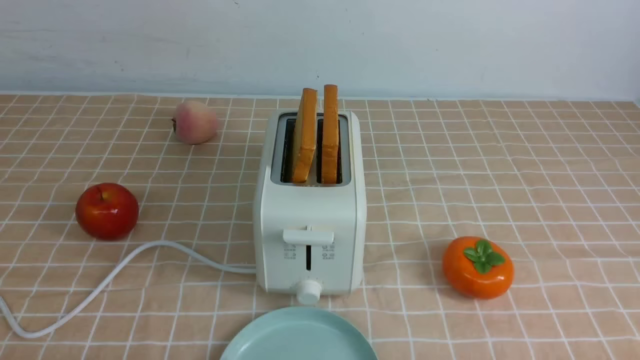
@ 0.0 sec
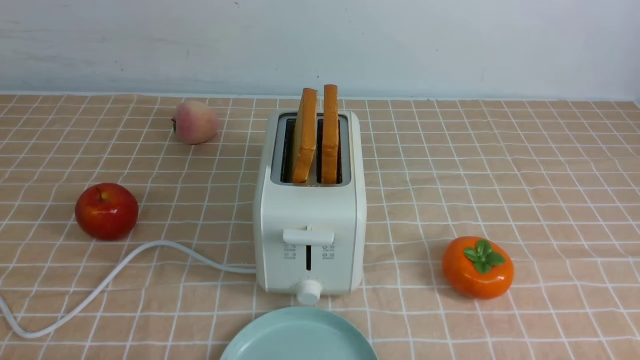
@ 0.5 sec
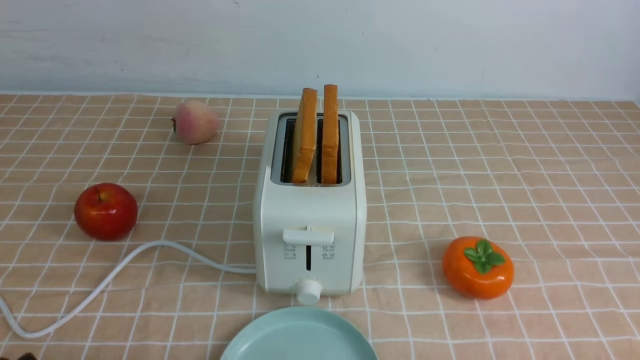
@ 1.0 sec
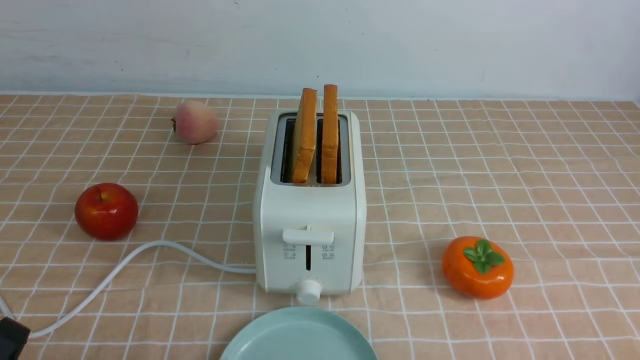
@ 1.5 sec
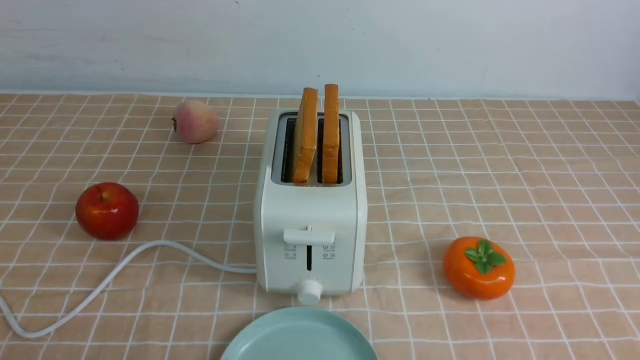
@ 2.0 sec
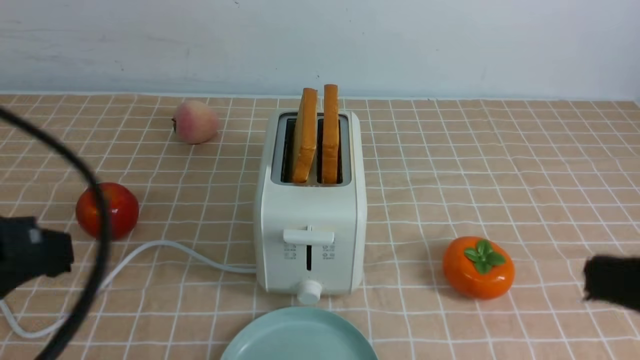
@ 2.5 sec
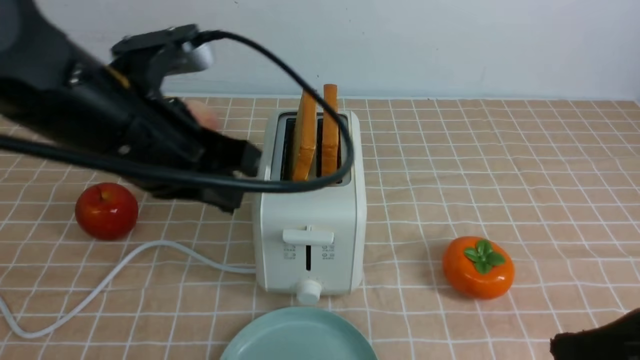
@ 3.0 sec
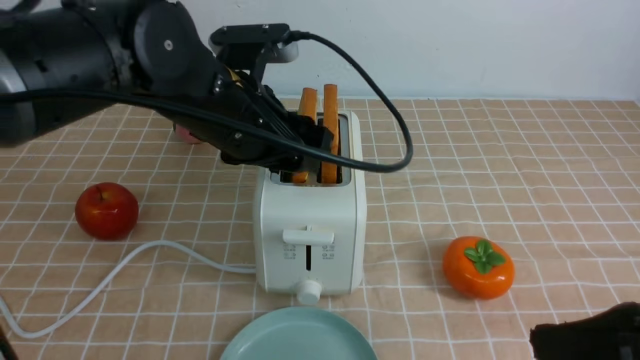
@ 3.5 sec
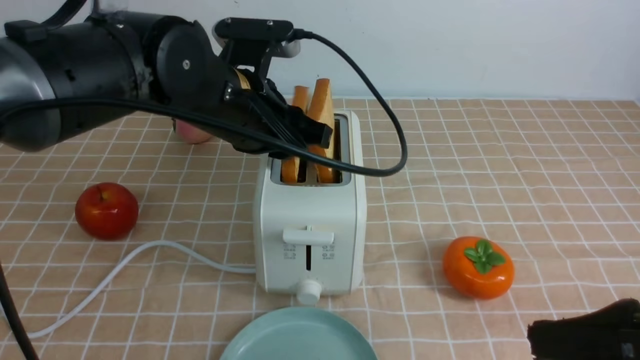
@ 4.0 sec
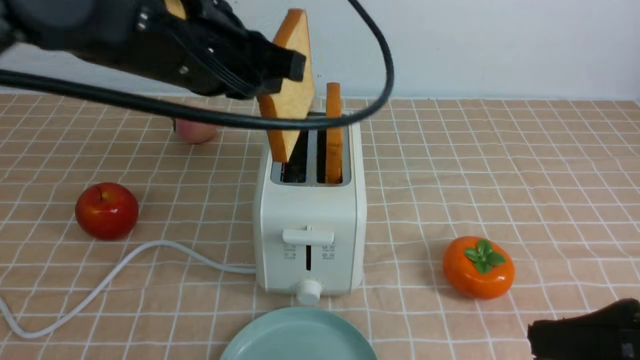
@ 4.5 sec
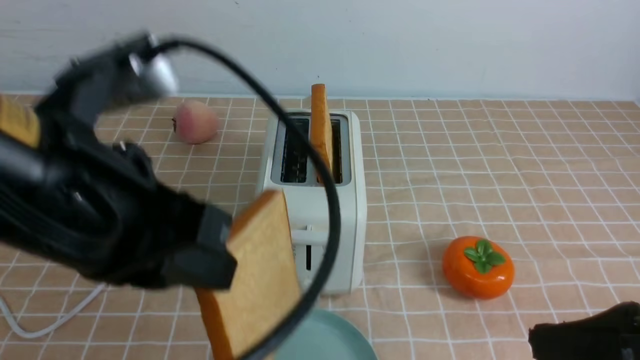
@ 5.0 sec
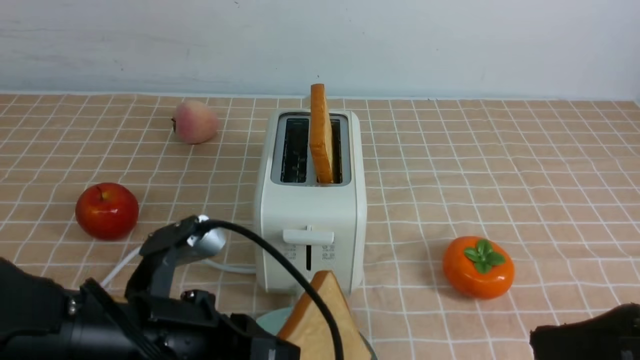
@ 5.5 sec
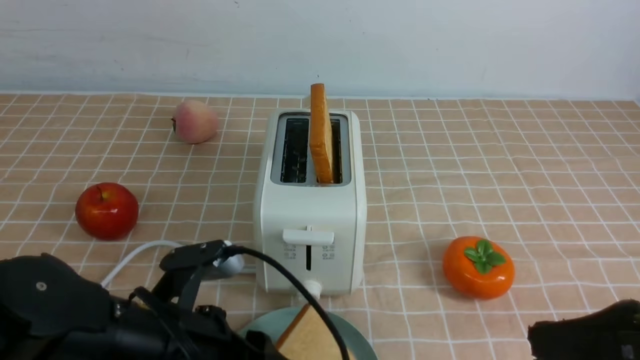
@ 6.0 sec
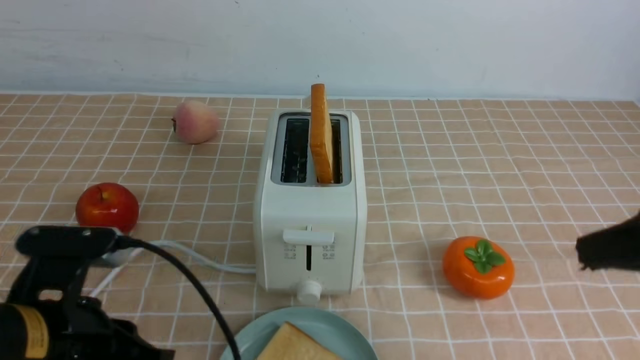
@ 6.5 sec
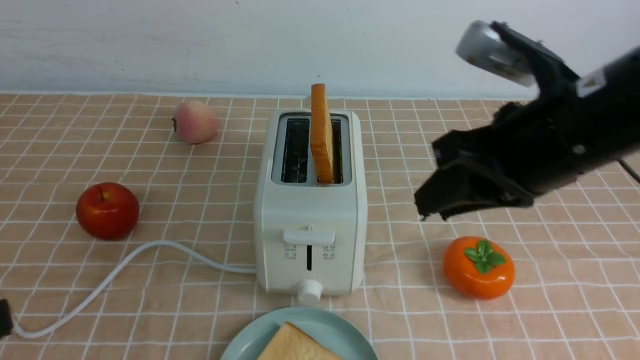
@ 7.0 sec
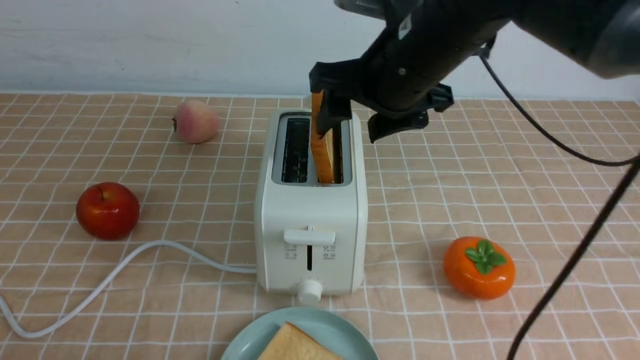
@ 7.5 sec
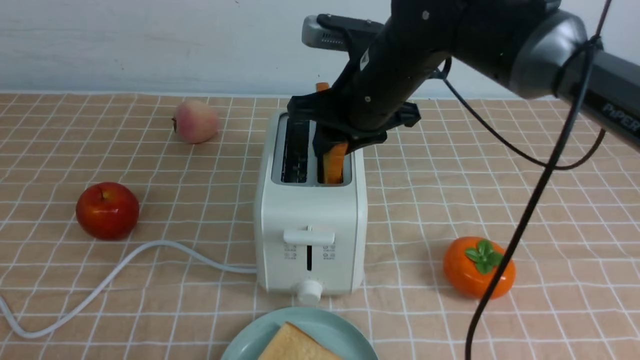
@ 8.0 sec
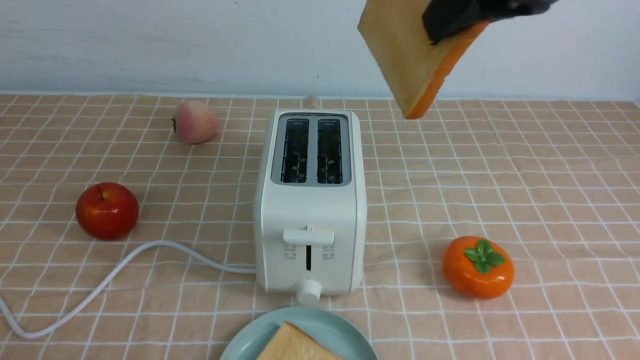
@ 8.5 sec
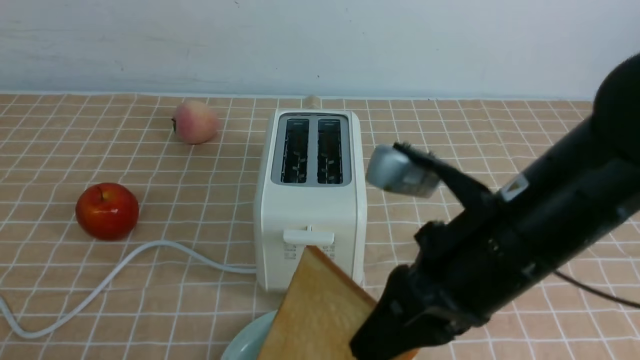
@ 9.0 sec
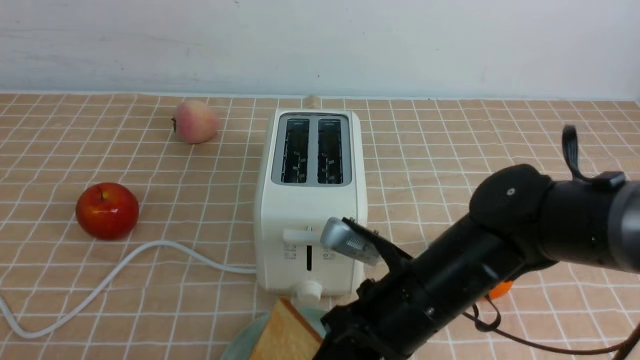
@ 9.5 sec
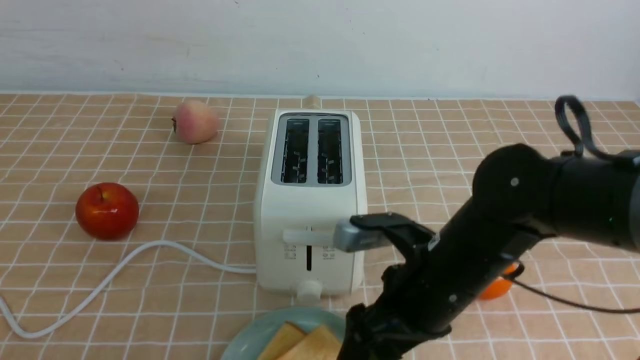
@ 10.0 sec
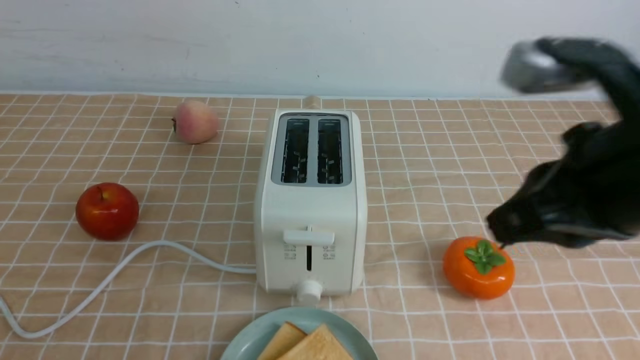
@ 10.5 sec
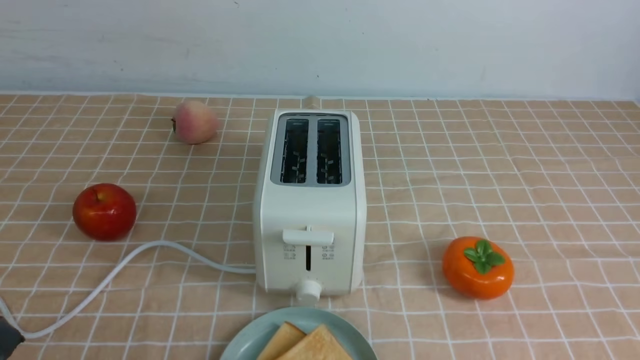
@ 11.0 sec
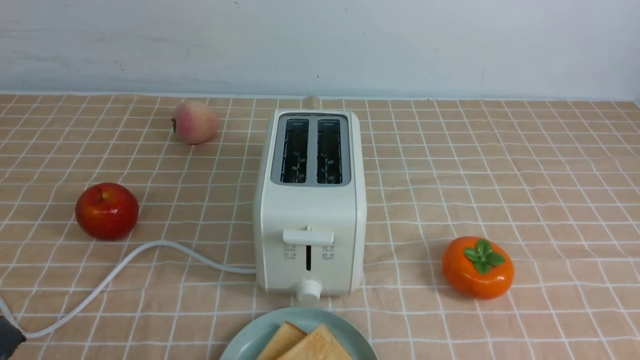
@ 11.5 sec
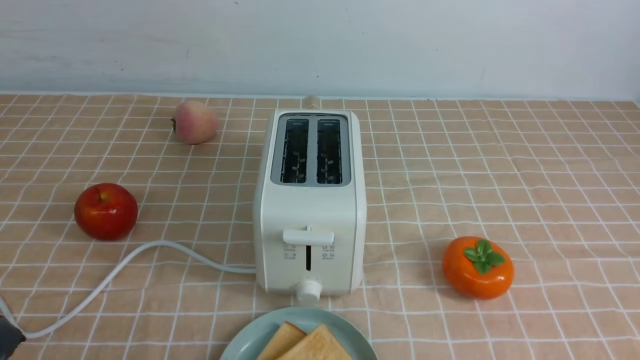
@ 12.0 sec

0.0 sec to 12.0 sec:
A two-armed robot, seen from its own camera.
Task of the whole recording: take toasted bread from bread machine on light coffee tablecloth place on plate.
Step, 0.0 sec to 4.0 sec: use the left arm to take out a slice of bread.
Step, 5.0 sec to 6.0 sec: use the left arm to put a slice of bread into the empty plate.
Step, 7.0 sec to 8.0 sec: use the right arm to take out a slice of bread.
Step, 8.5 sec to 10.0 sec: use the right arm to put a slice of bread into the plate.
2.0 sec to 4.0 sec: The right gripper is displaced forward by approximately 10 cm. The left gripper heads forward and to the right, covering about 35 cm, and opens up.
4.0 sec to 6.0 sec: The left gripper moves backward and downward, some 20 cm, and closes, then opens again.
6.0 sec to 8.0 sec: The right gripper shifts about 30 cm forward and to the left, and opens up. The left gripper is displaced backward, to the left and upward by some 25 cm, and closes its fingers.
8.0 sec to 10.0 sec: The right gripper shifts about 15 cm downward and backward, and opens.
10.0 sec to 12.0 sec: The left gripper shifts by approximately 5 cm; the right gripper shifts some 30 cm backward and to the right, and closes its fingers.

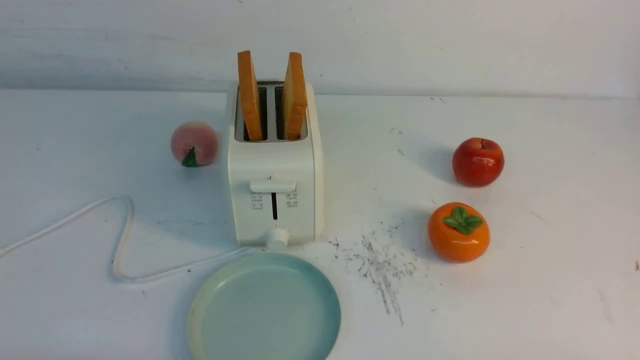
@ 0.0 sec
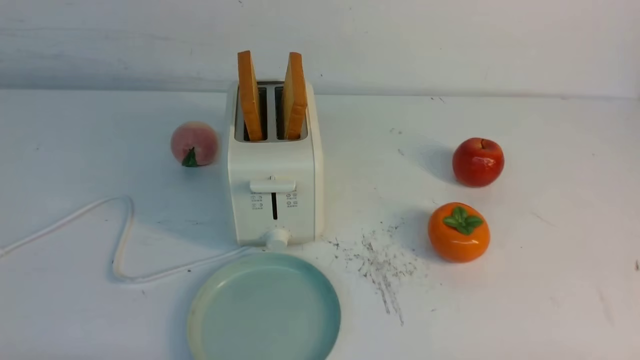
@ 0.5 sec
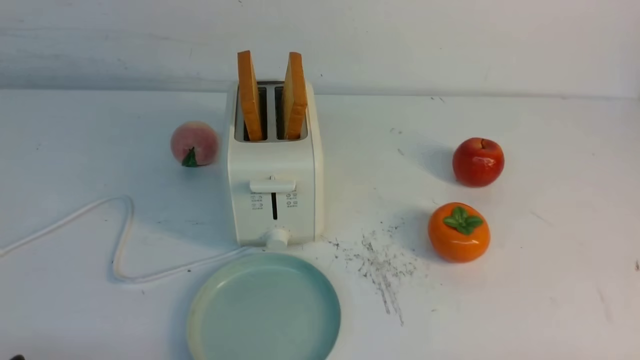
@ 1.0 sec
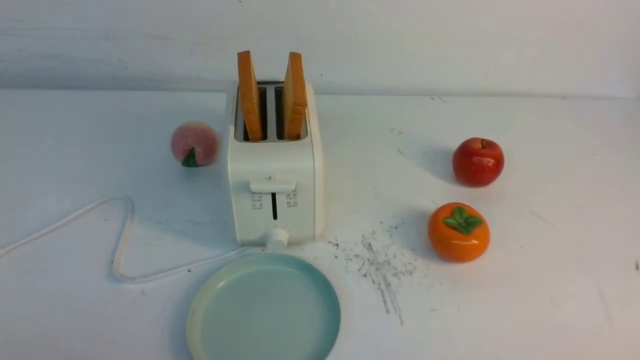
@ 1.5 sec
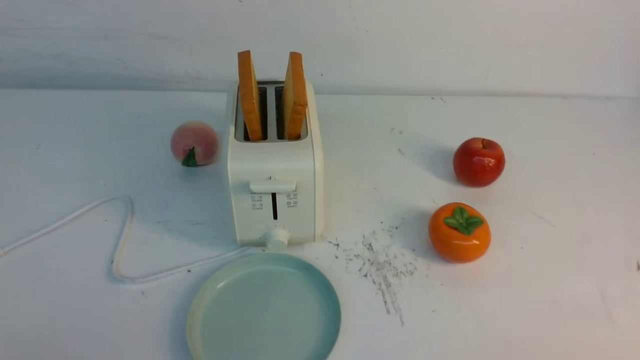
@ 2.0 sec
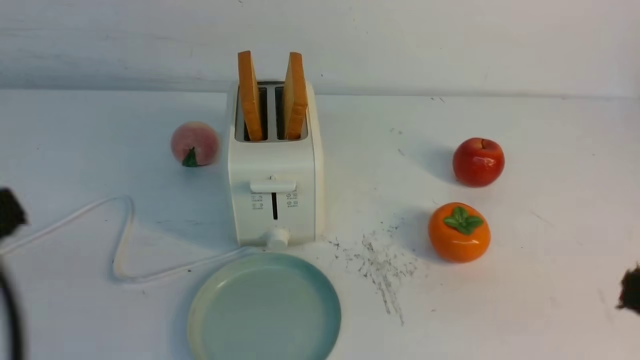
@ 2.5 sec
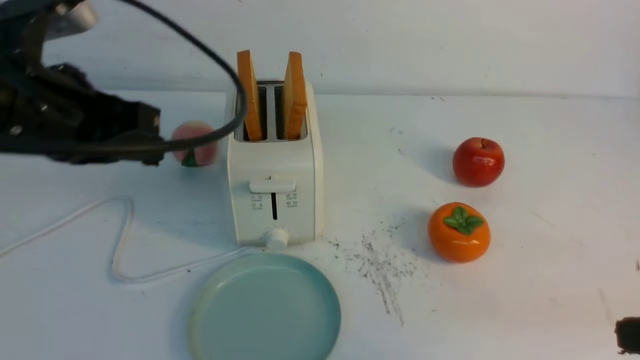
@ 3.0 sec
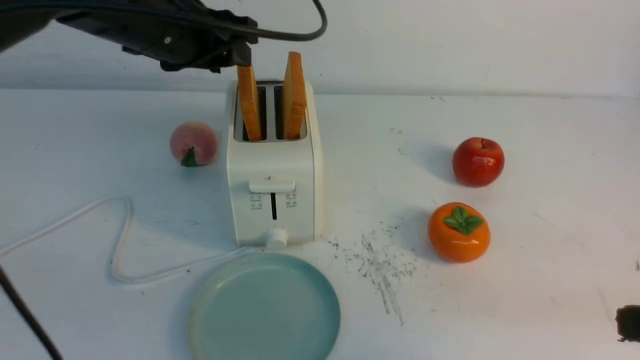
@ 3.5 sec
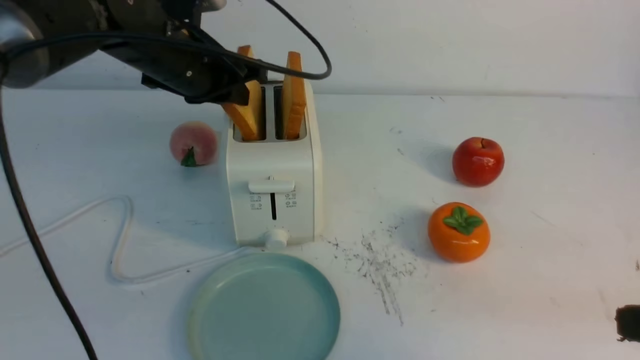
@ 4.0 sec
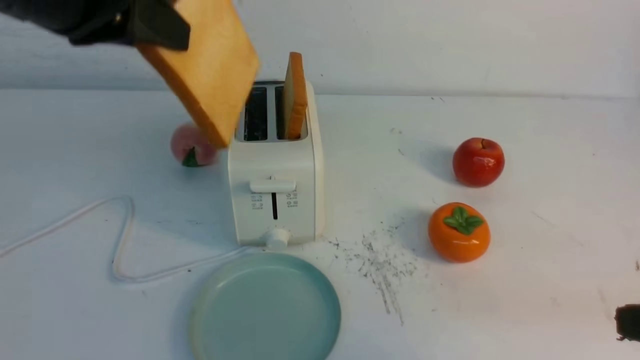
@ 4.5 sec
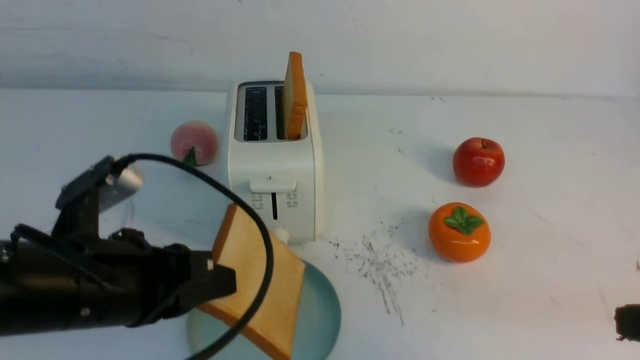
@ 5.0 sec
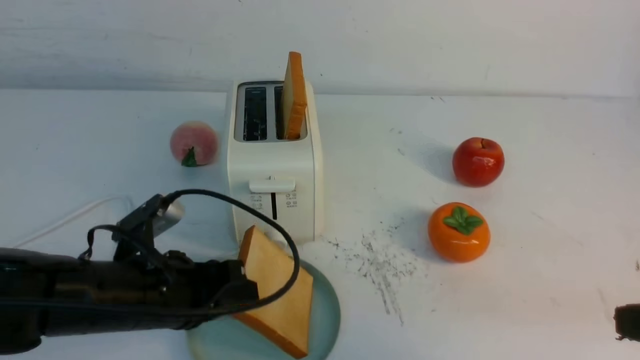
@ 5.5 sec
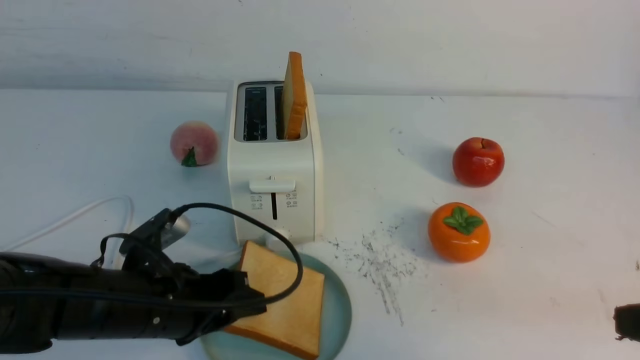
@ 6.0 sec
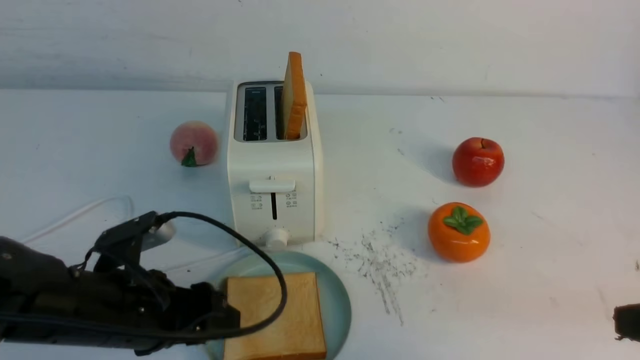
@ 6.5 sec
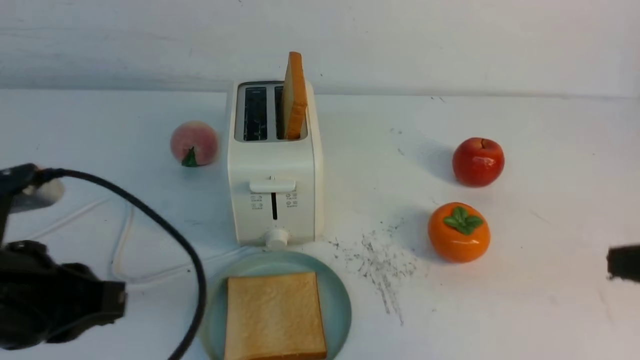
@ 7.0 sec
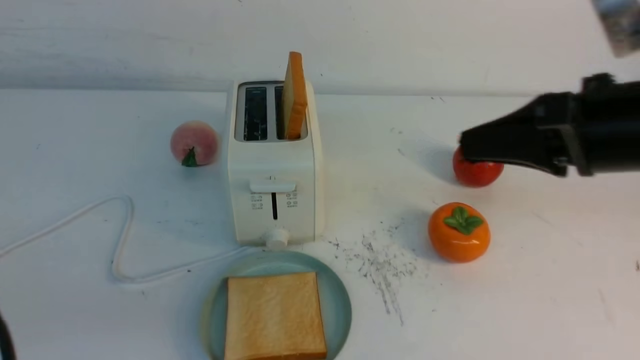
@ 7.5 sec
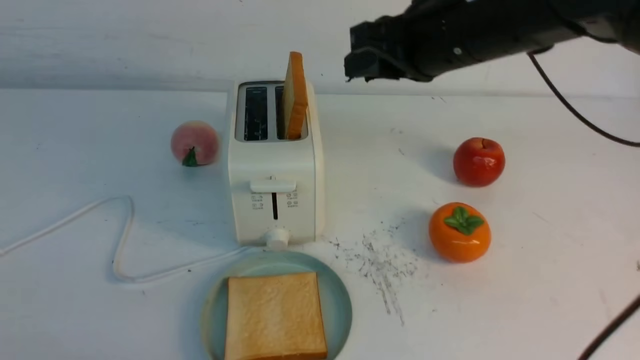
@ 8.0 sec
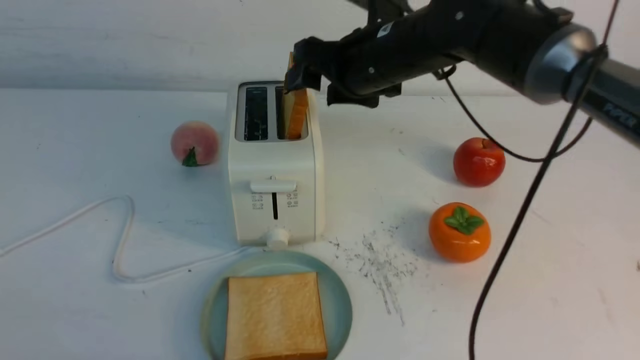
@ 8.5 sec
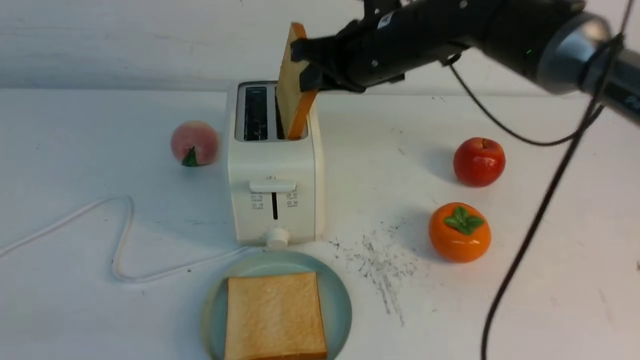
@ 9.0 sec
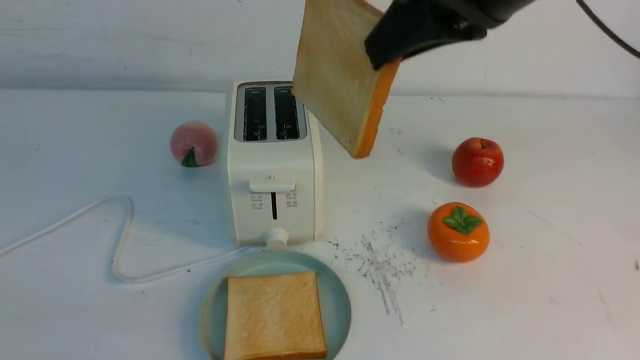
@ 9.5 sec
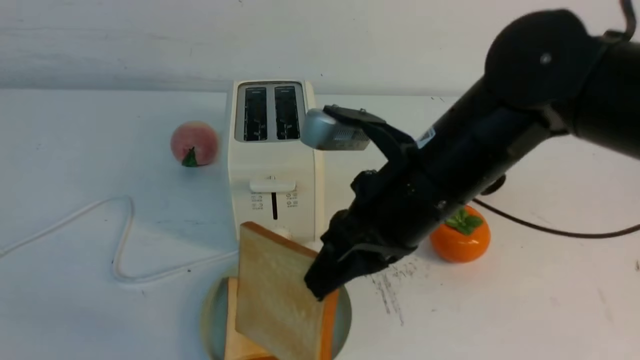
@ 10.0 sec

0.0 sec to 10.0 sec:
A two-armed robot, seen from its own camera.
Task of the whole recording: take toasted bread from bread machine on white table place on plate.
Step, 0.0 sec to 4.0 sec: use the left arm to take out a slice of bread.
Step, 4.5 sec to 7.0 sec: use the left arm to put a slice of bread into the empty plate.
Step, 7.5 sec to 9.0 sec: use the right arm to take out a slice of bread.
2.0 sec to 4.0 sec: The left gripper is displaced forward by approximately 35 cm, and opens, then closes once more. The right gripper heads forward and upward, covering about 10 cm.
4.0 sec to 6.0 sec: The left gripper goes some 25 cm downward and backward.
6.0 sec to 8.0 sec: The left gripper is displaced backward, upward and to the left by about 30 cm, and closes. Meanwhile the right gripper heads forward and to the left, covering approximately 30 cm, and opens its fingers.
8.0 sec to 10.0 sec: The right gripper heads backward and downward, covering some 10 cm, and closes its fingers.
